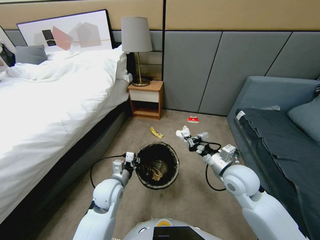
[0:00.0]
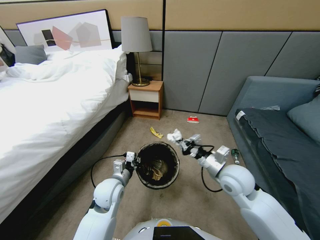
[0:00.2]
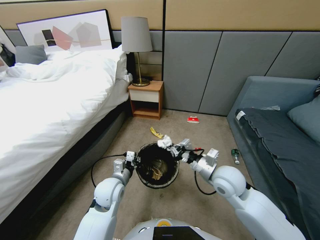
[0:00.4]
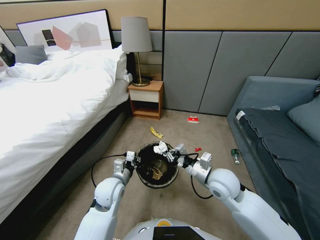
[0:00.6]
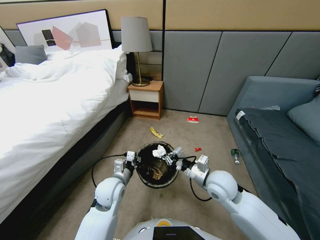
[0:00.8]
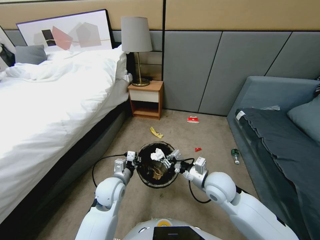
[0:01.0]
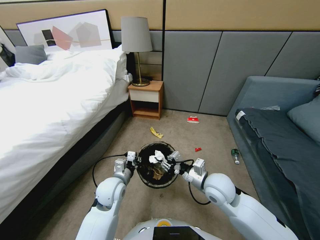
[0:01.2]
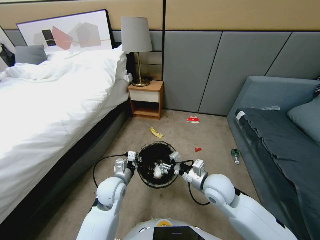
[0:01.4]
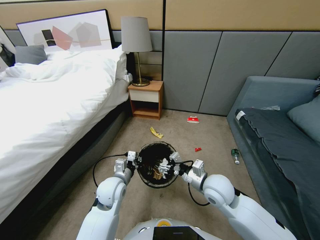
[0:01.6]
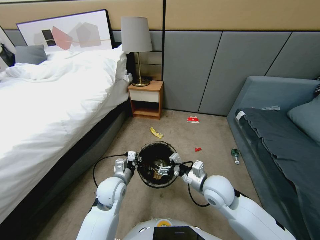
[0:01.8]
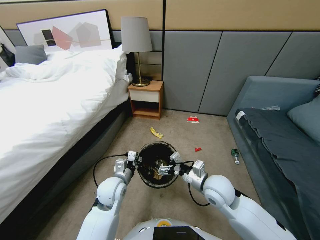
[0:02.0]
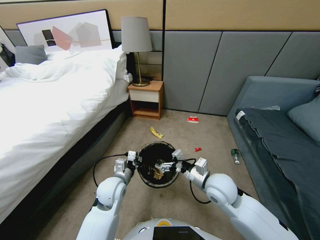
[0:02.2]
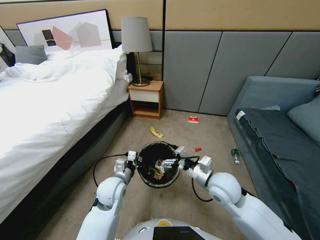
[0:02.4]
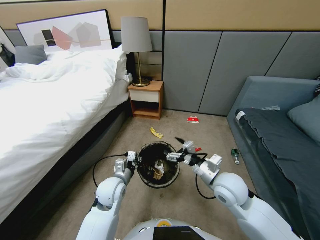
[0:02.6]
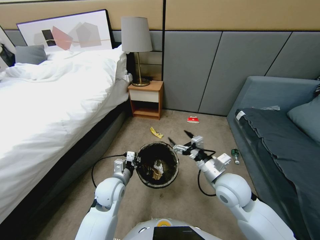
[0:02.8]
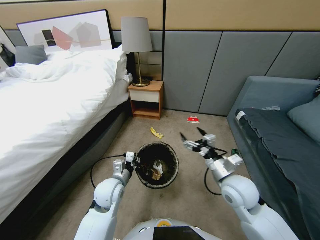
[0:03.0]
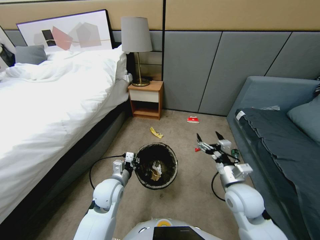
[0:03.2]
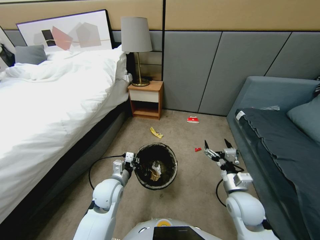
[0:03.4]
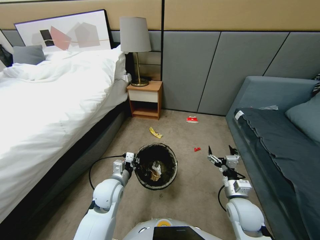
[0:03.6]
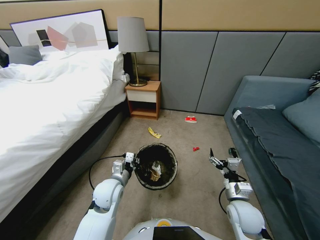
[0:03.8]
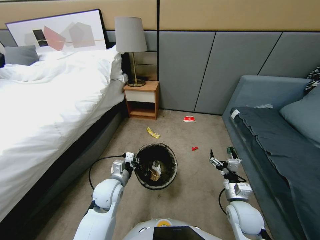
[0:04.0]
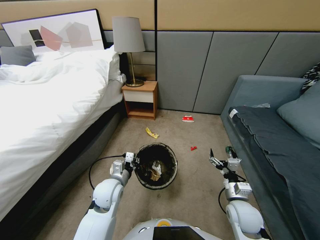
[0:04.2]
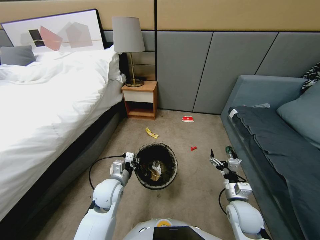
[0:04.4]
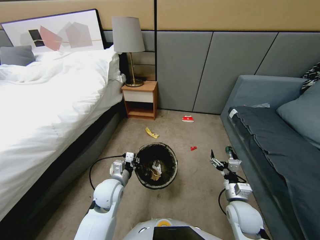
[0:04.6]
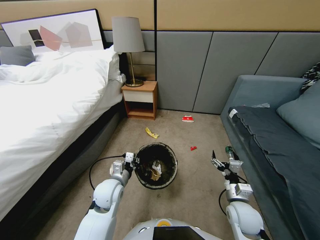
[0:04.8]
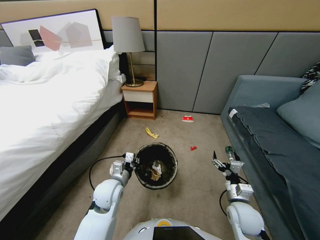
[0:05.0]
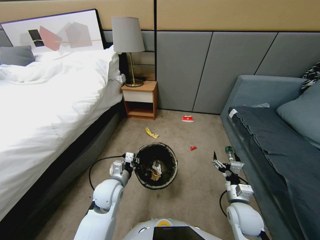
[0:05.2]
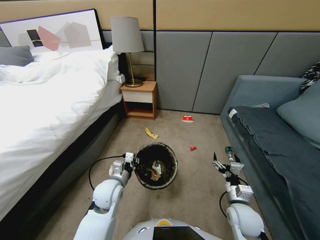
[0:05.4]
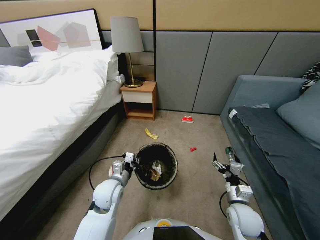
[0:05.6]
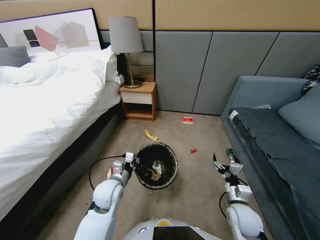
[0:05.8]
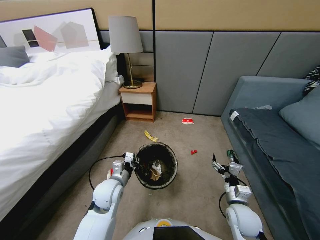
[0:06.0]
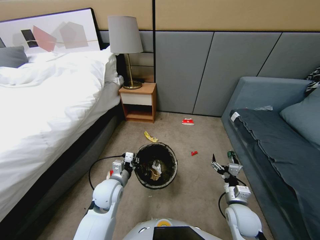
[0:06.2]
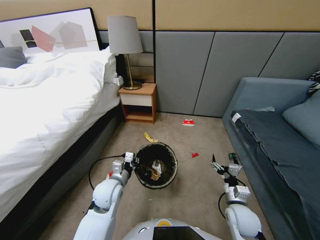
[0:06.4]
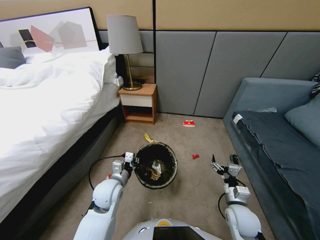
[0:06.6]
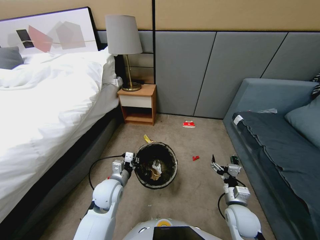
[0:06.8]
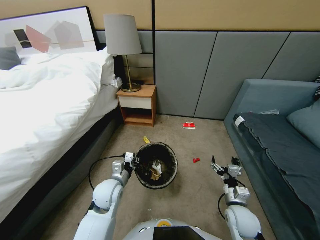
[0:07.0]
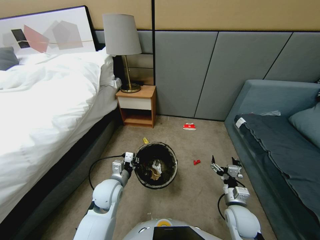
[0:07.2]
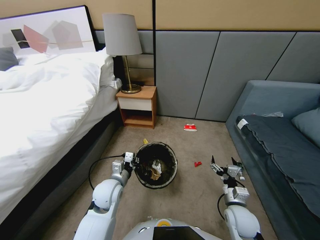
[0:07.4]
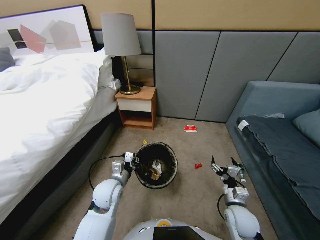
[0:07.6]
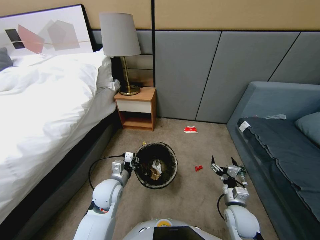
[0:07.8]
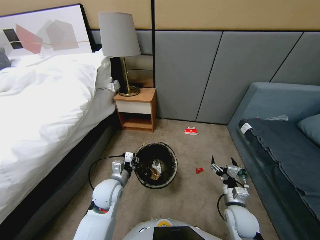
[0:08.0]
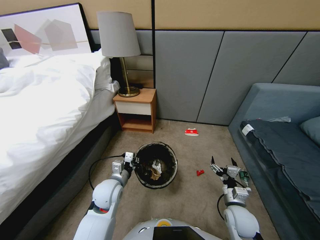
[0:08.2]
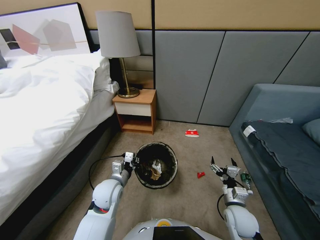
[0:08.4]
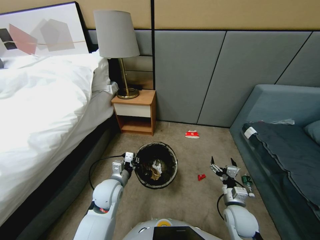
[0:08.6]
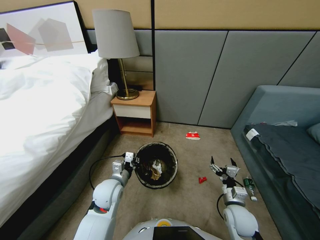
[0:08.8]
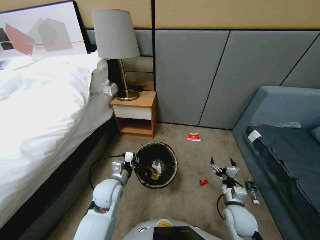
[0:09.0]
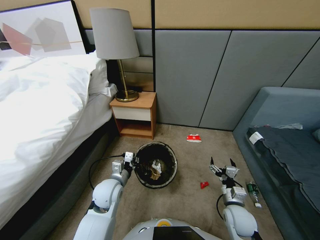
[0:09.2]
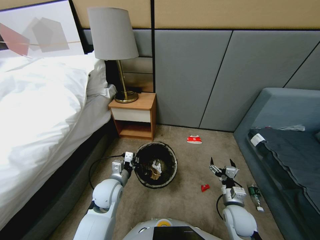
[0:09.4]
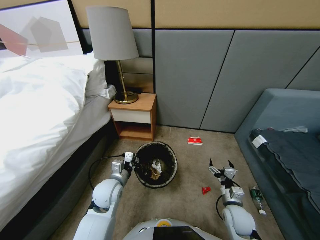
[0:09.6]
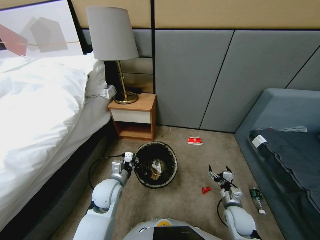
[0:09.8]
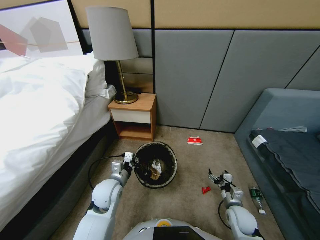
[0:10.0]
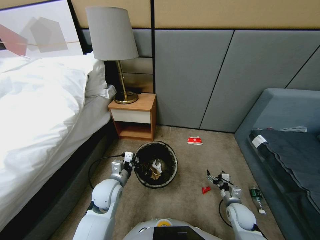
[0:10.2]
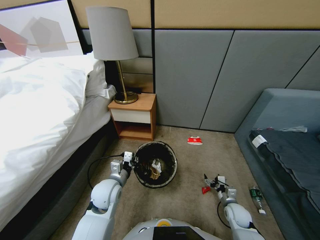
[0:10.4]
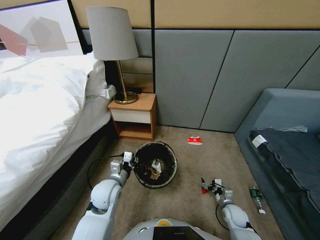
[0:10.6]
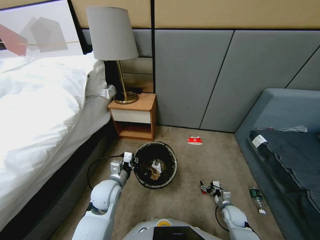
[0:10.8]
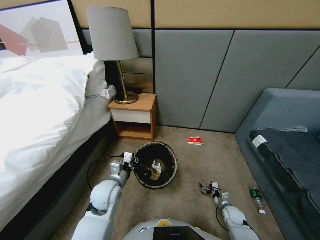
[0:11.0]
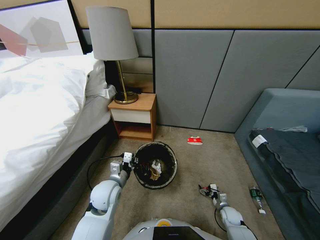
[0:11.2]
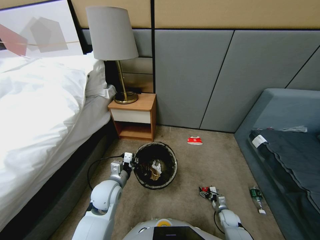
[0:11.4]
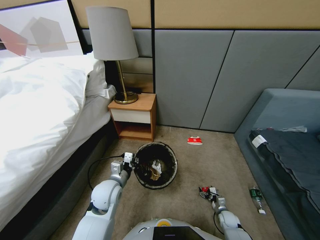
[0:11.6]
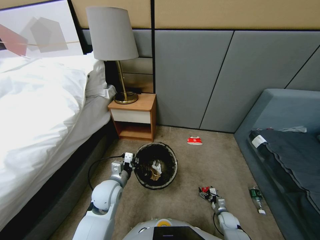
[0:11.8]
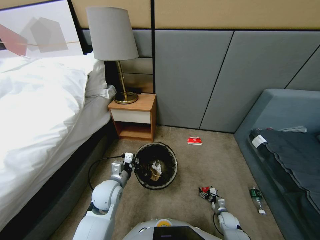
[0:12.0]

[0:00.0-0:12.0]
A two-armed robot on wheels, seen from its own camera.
Task of the whole recording: Pick up the trash bin, then pick up the garbage from the floor and place it into the trash bin.
0:00.0 to 0:01.6: The right gripper shifts some 5 cm to the left, and opens its fingers.
0:01.6 to 0:03.0: The right gripper shifts approximately 5 cm to the right.
0:03.0 to 0:04.4: The right gripper shifts roughly 10 cm downward.
0:04.4 to 0:06.0: Neither gripper changes place.
0:06.0 to 0:07.6: The grippers make only small movements.
0:07.6 to 0:09.0: Both grippers stay about where they are.
0:09.0 to 0:10.4: The right gripper goes some 15 cm downward and to the right.
0:10.4 to 0:12.0: The right gripper shifts approximately 15 cm downward.

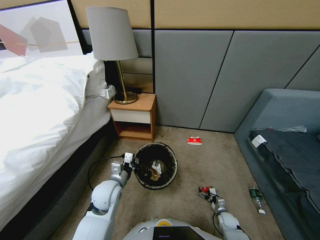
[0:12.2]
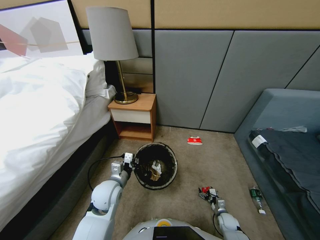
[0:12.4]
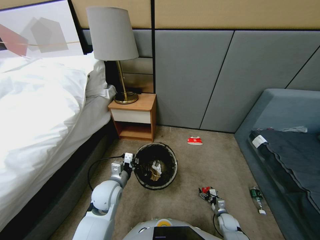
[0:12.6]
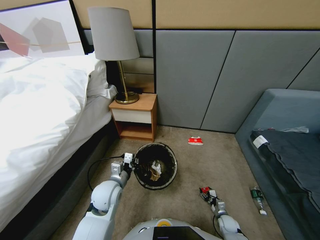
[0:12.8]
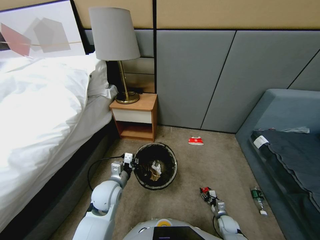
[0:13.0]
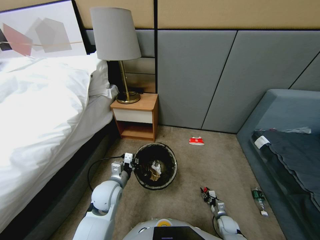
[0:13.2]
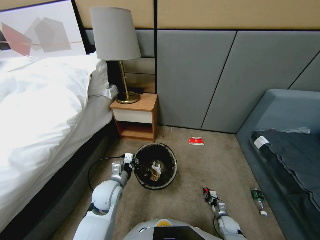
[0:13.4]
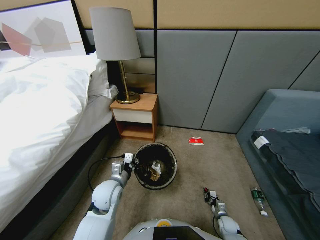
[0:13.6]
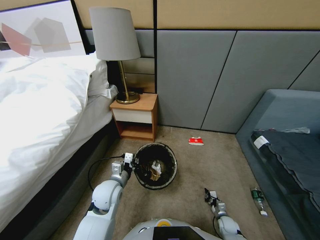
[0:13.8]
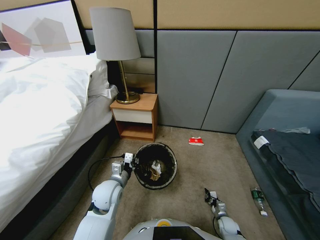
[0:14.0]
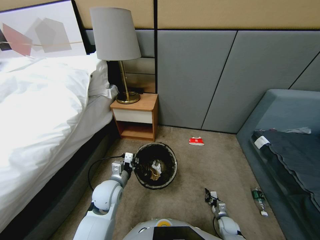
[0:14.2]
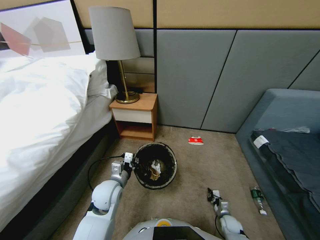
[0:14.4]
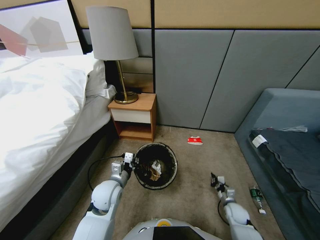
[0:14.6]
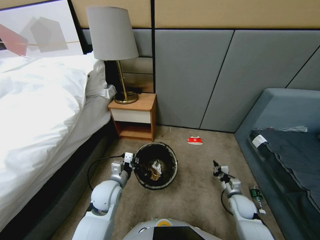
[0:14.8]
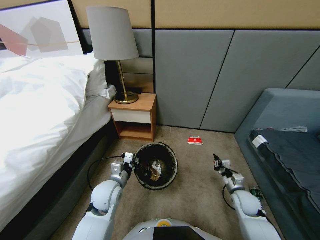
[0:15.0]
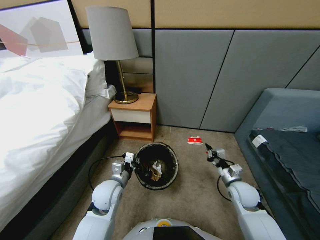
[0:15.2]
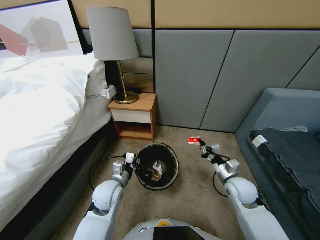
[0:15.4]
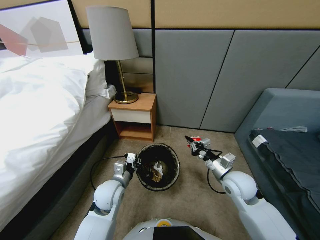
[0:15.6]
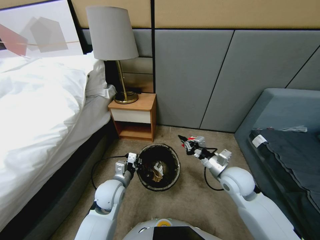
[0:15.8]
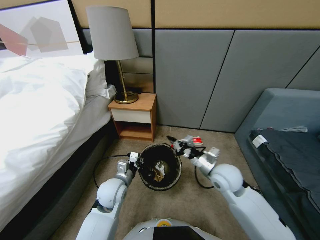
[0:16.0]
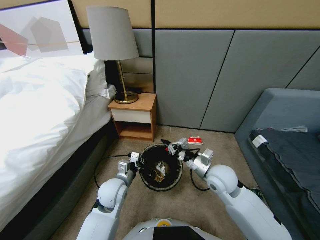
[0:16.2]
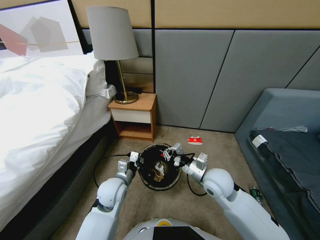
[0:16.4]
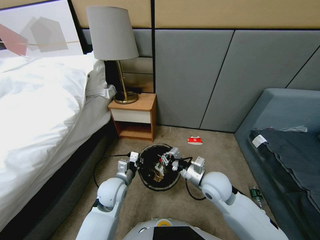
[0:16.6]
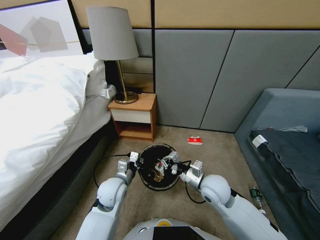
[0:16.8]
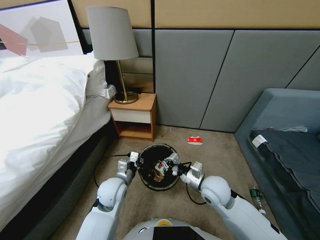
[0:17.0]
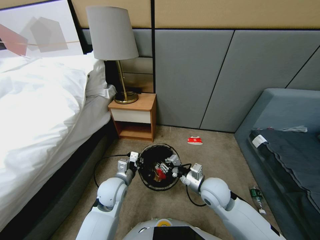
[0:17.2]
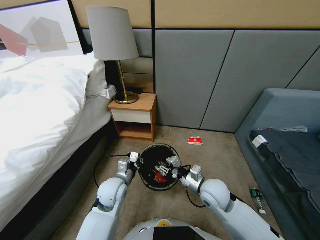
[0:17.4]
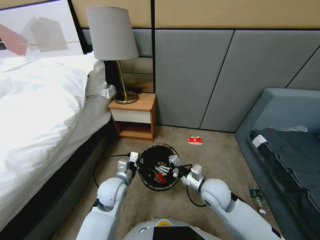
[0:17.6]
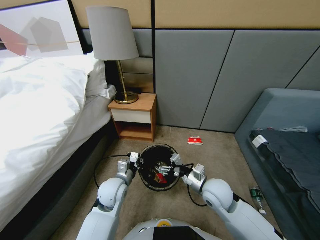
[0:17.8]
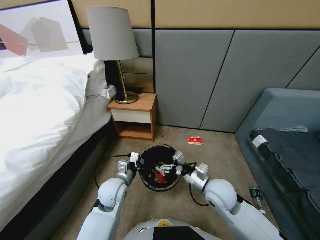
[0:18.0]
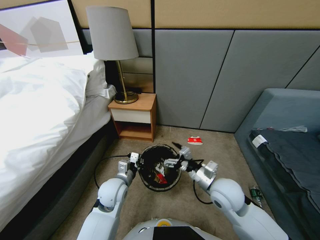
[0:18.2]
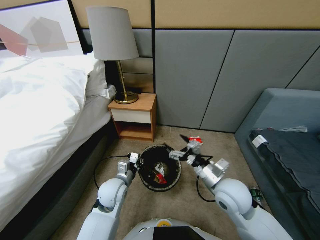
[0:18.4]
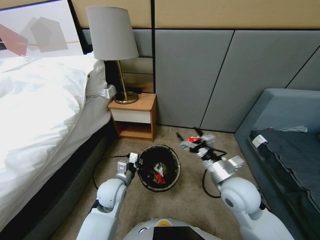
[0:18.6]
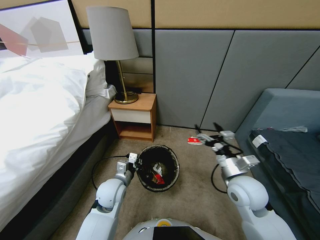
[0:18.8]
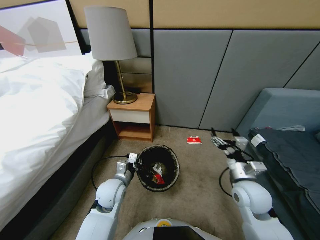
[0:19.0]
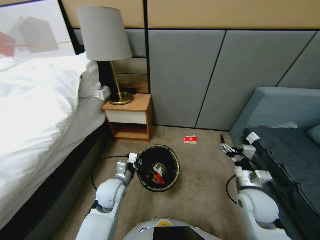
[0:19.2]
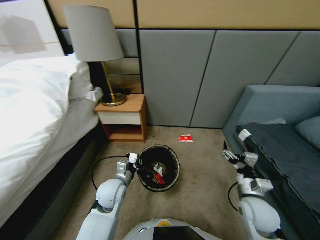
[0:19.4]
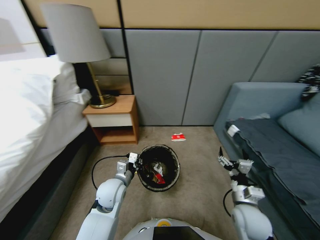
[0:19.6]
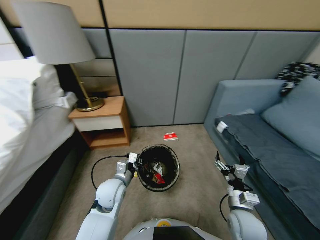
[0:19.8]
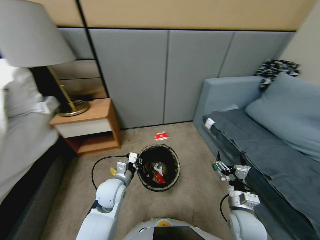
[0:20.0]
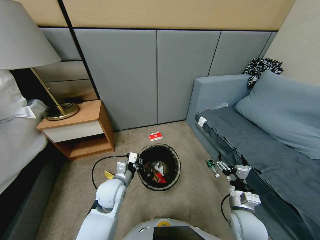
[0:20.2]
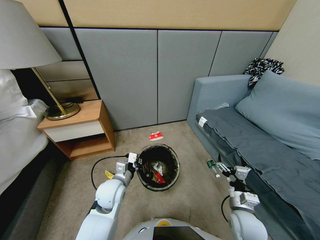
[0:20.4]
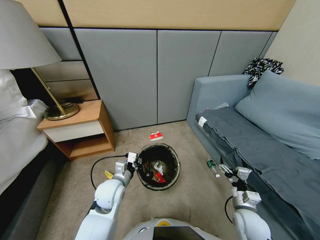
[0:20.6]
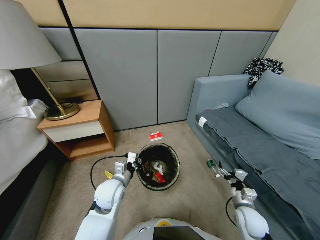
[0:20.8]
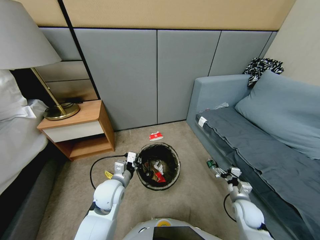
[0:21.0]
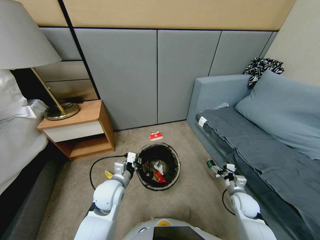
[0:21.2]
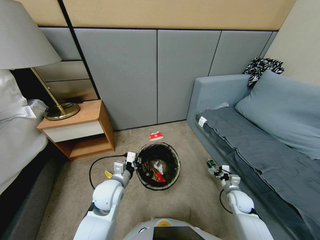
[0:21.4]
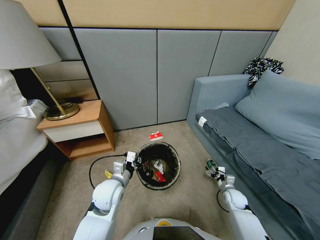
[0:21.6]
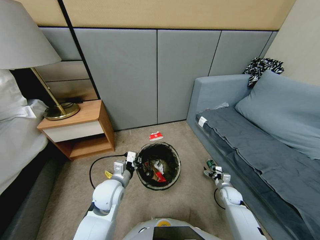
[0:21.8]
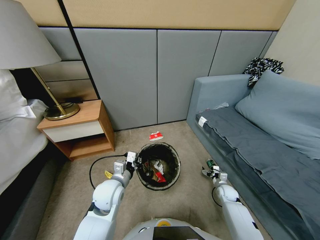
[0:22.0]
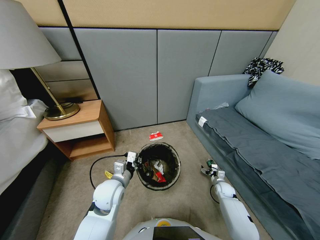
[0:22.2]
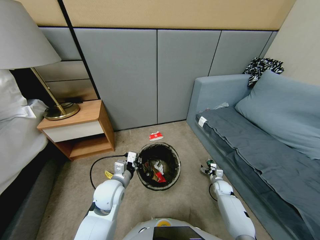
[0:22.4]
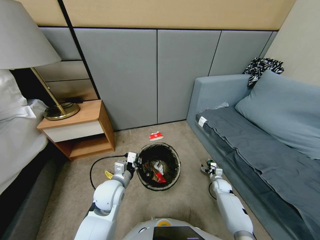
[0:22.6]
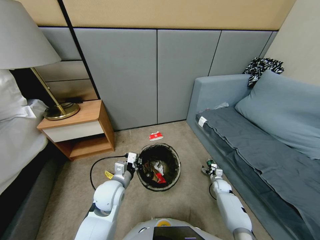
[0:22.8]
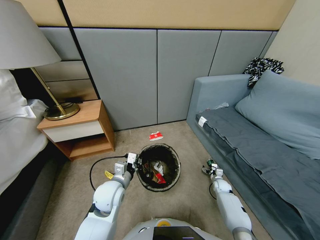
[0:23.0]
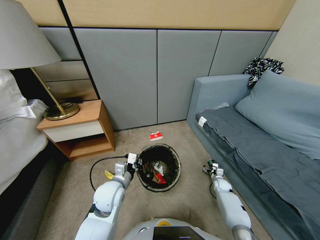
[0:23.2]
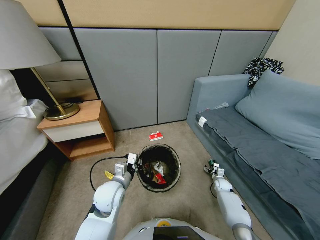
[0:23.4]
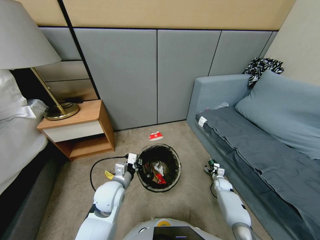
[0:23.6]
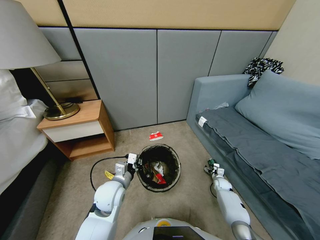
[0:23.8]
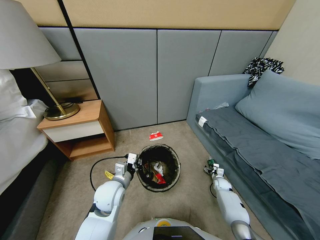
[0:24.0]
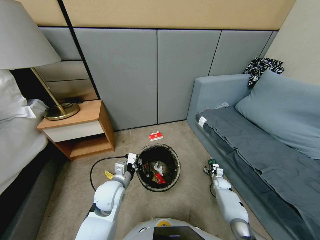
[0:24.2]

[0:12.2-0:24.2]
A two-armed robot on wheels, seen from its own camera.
Task of the whole recording: Pick up the trash bin, then pick up the garbage from the floor and place it into the trash bin.
0:12.2 to 0:13.8: The right gripper closes up.
0:13.8 to 0:15.2: The right gripper goes some 30 cm upward.
0:15.2 to 0:16.6: The right gripper goes approximately 10 cm to the left.
0:16.6 to 0:18.2: The right gripper opens its fingers.
0:18.2 to 0:19.8: The right gripper is displaced downward, backward and to the right by about 15 cm.
0:19.8 to 0:21.2: The right gripper shifts roughly 20 cm downward, to the right and forward.
0:21.2 to 0:22.6: The right gripper heads downward and forward, covering some 15 cm.
0:22.6 to 0:24.2: The grippers make only small movements.
